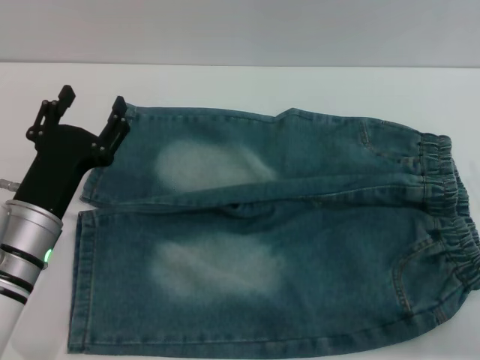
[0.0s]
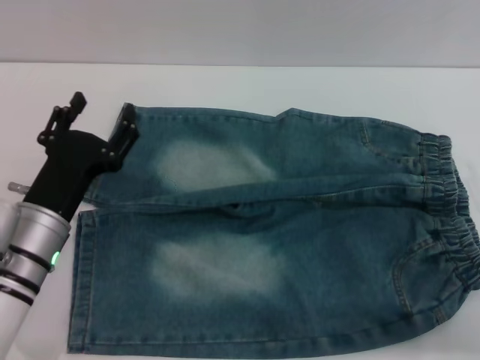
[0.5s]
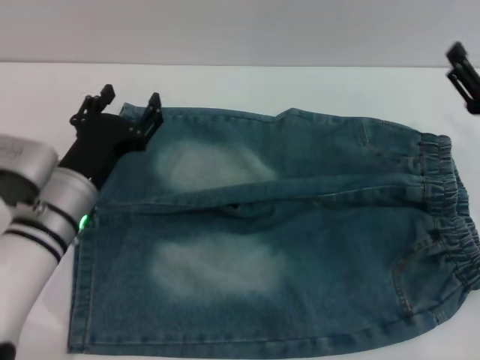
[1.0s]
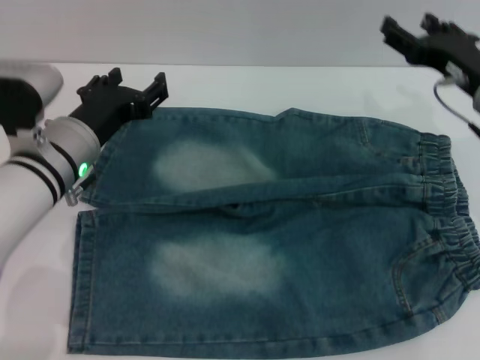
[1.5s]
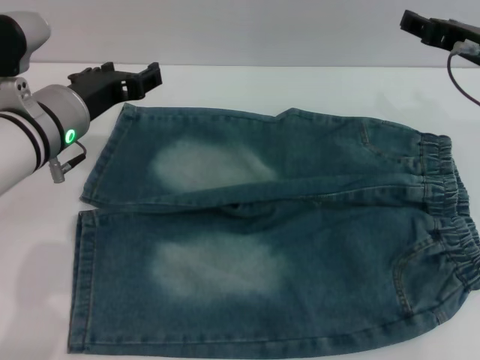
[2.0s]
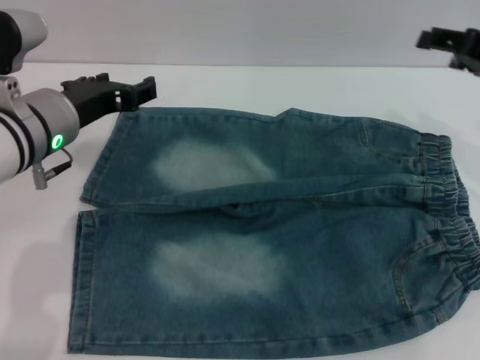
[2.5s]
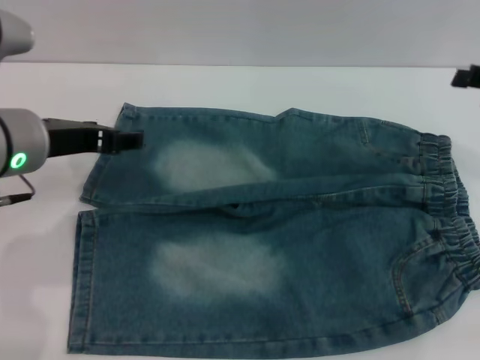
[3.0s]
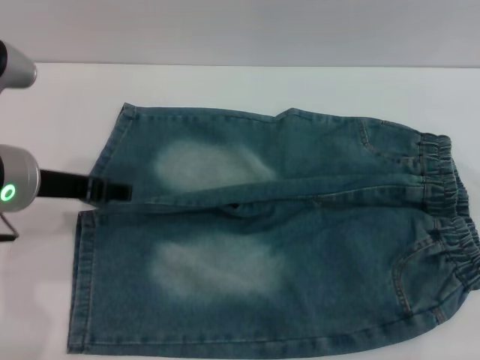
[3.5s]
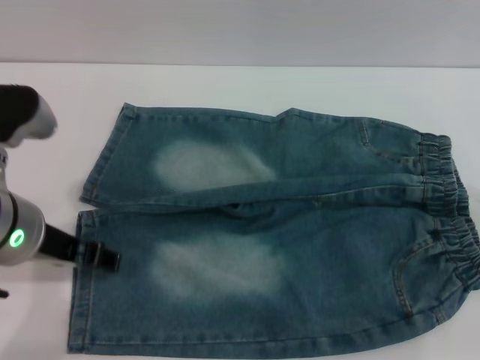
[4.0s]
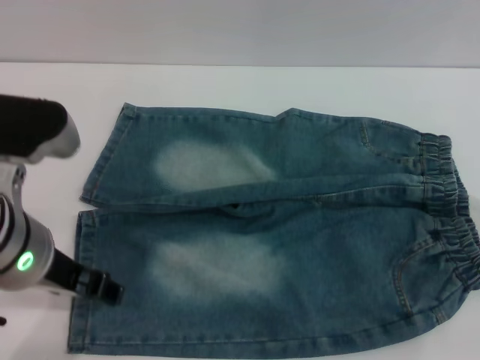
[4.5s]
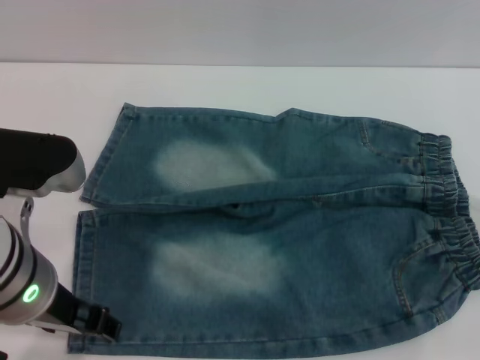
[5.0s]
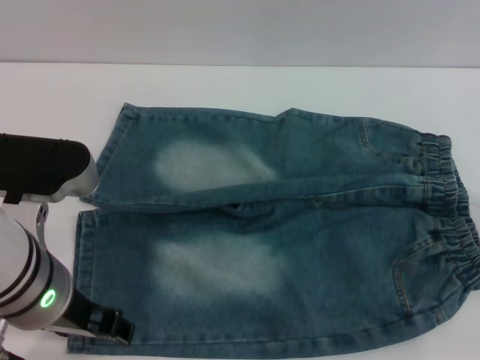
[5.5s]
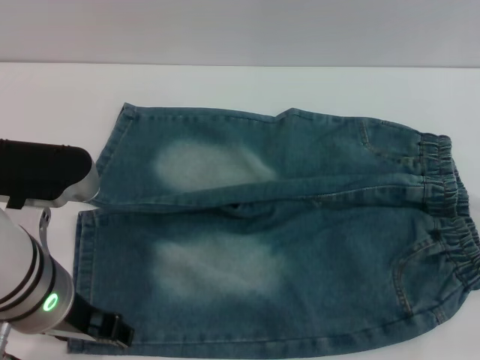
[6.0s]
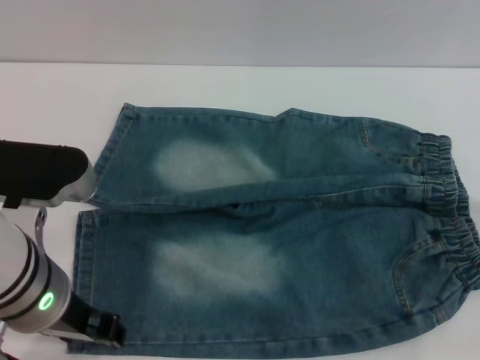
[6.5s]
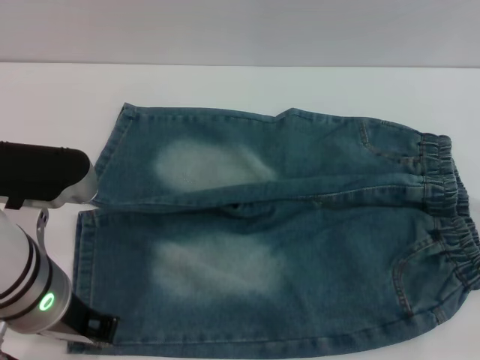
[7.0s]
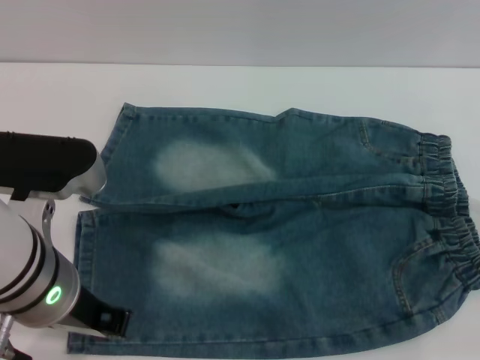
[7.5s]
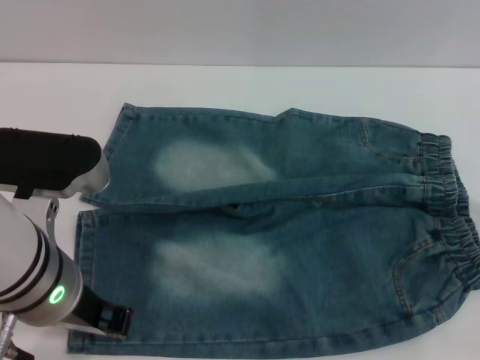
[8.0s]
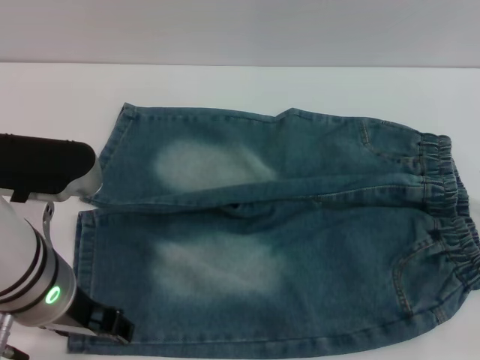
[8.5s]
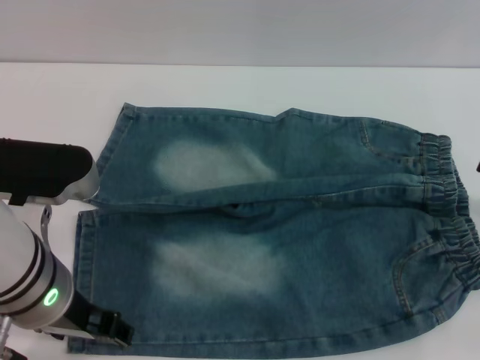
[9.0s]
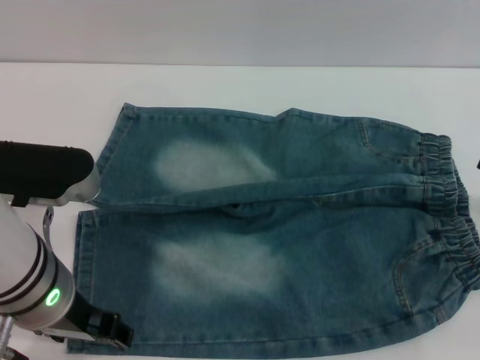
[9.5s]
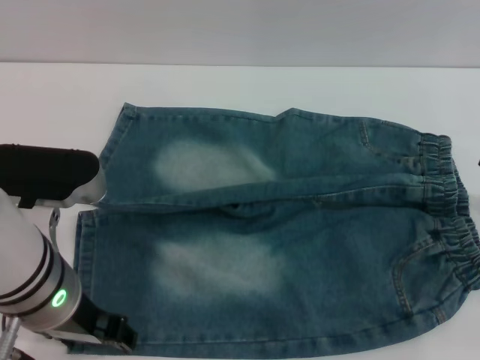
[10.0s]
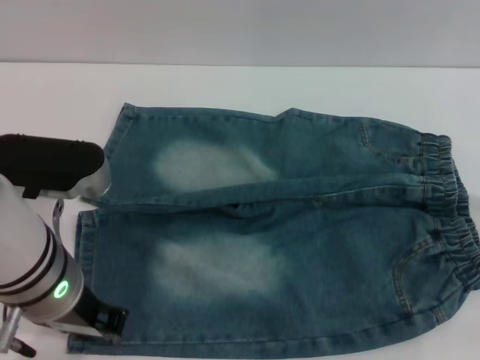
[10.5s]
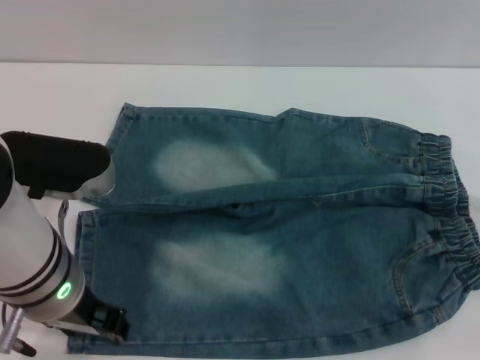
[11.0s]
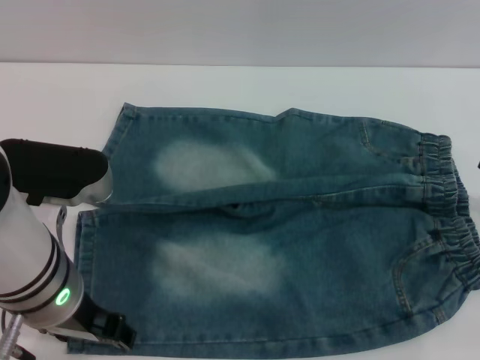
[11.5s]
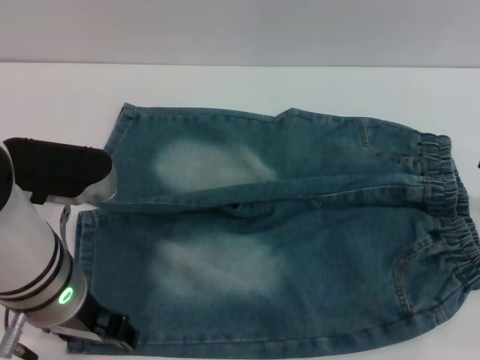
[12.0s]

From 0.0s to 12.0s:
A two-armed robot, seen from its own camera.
From 0.0s to 2.0s: The left gripper goes roughly 15 cm upward and forward, while the right gripper heads forward, upward and to the left, covering some 20 cm.
From 2.0s to 4.0s: The right gripper travels to the right and backward by approximately 15 cm. The left gripper travels backward by roughly 10 cm.
From 4.0s to 6.0s: The left gripper ends up approximately 5 cm from where it was.
From 6.0s to 8.0s: The left gripper closes.
From 8.0s to 10.0s: The left gripper opens its fingers.
From 10.0s to 12.0s: The left gripper closes and opens again.

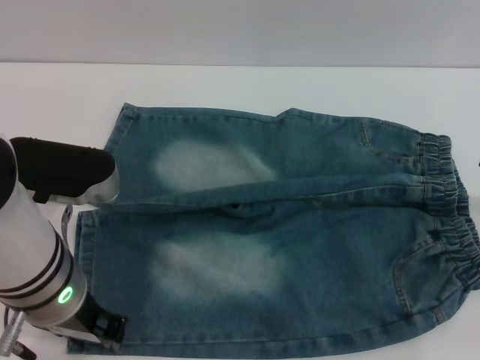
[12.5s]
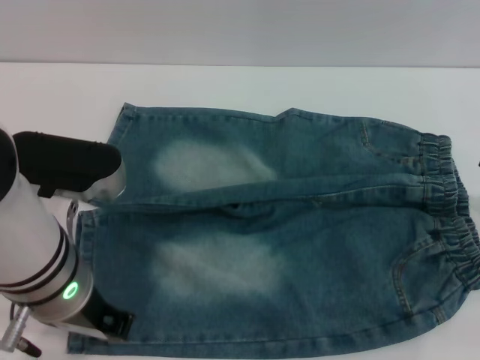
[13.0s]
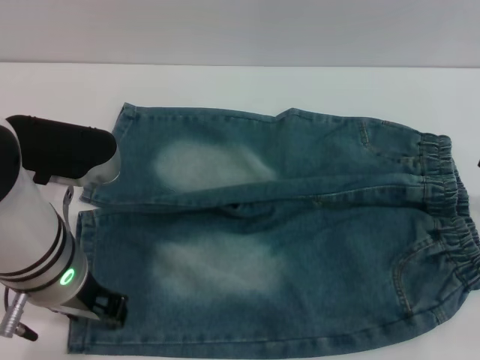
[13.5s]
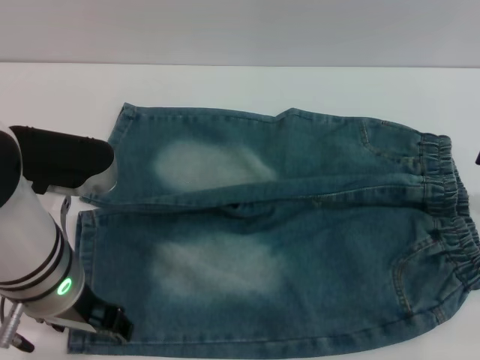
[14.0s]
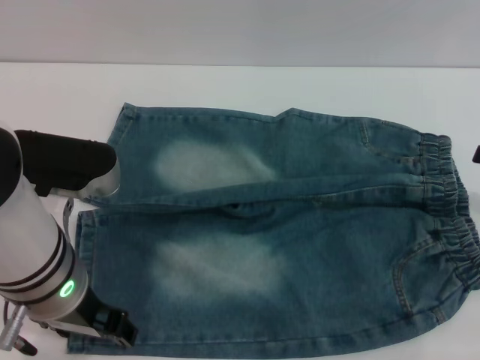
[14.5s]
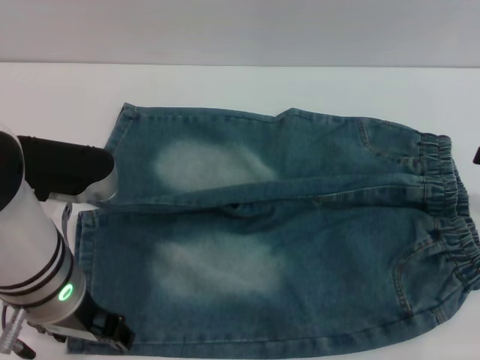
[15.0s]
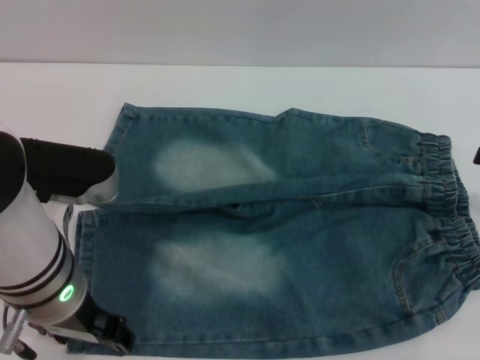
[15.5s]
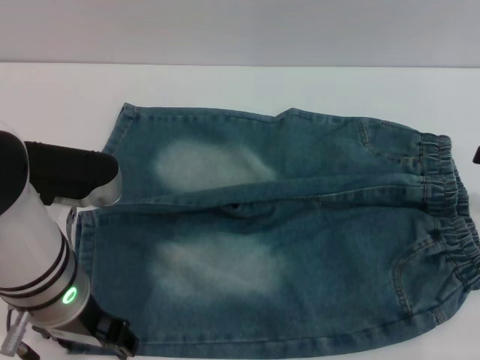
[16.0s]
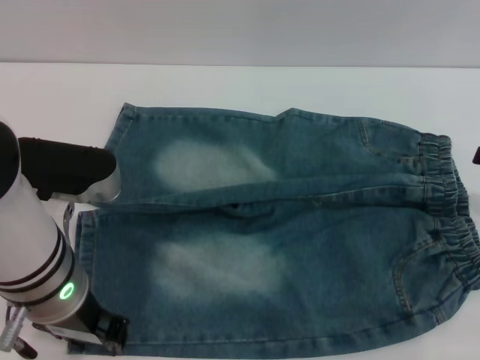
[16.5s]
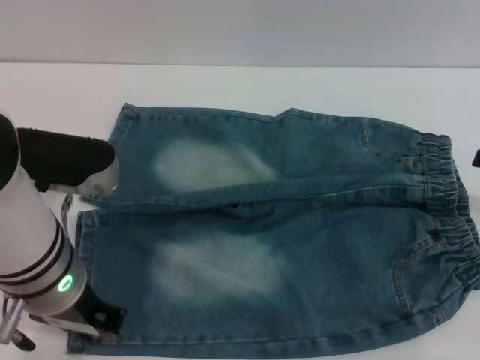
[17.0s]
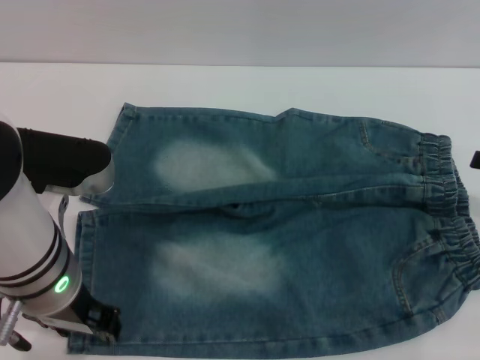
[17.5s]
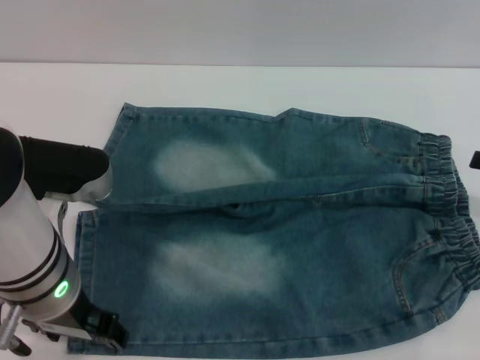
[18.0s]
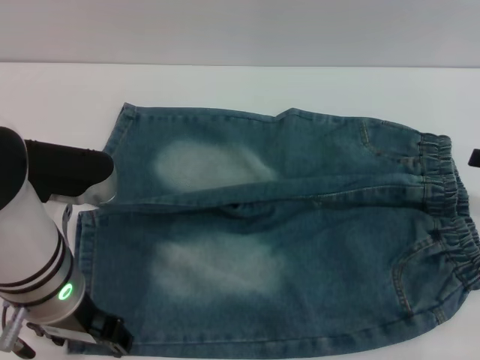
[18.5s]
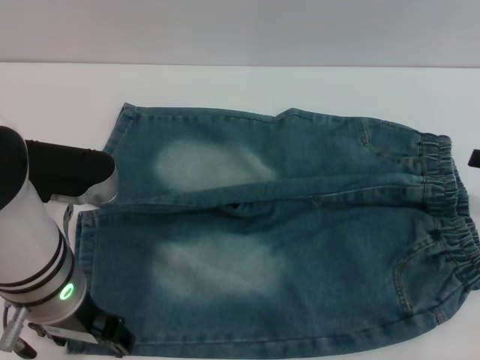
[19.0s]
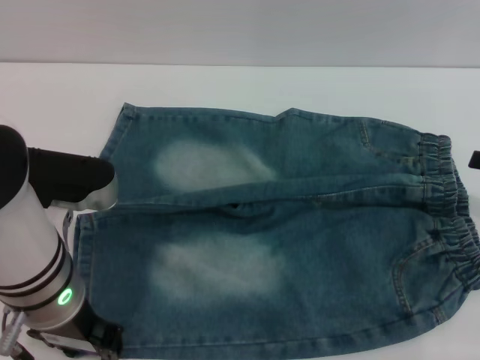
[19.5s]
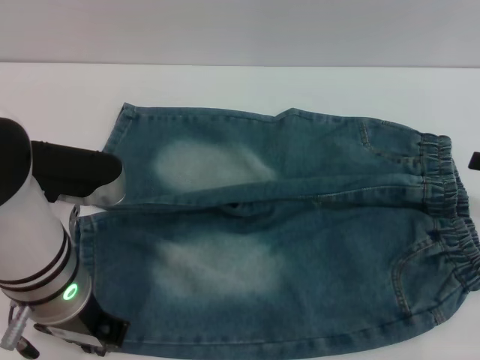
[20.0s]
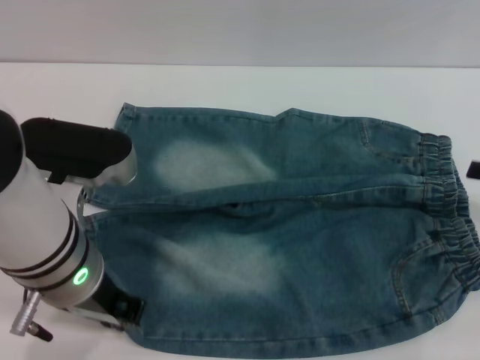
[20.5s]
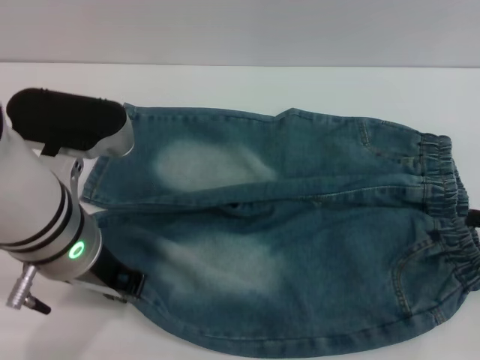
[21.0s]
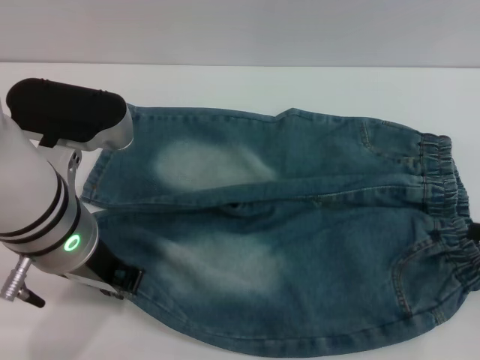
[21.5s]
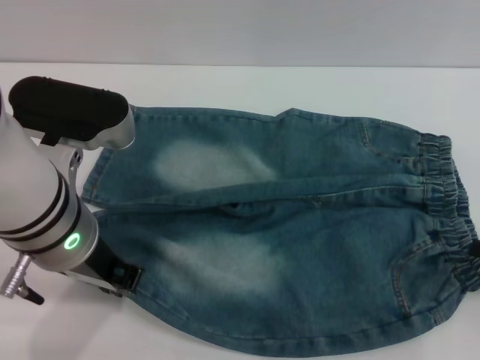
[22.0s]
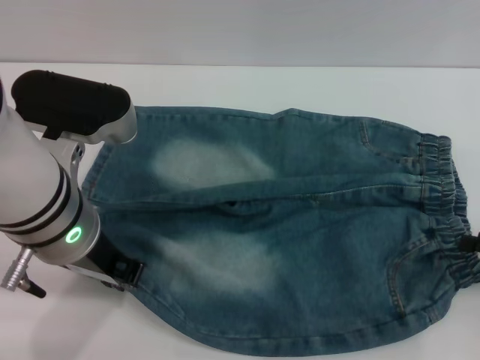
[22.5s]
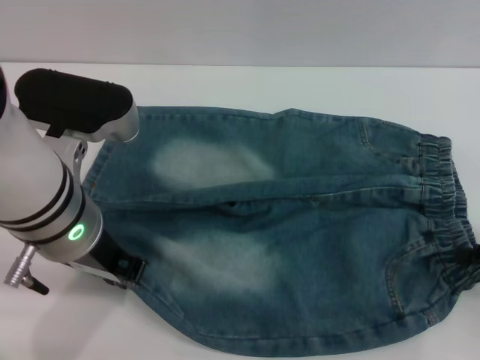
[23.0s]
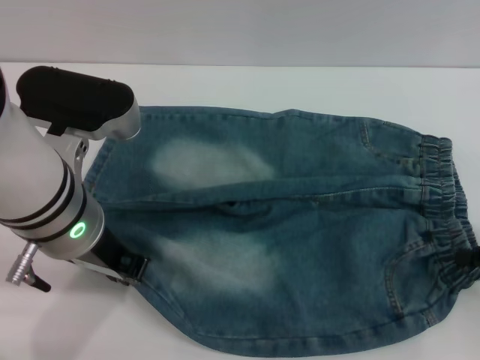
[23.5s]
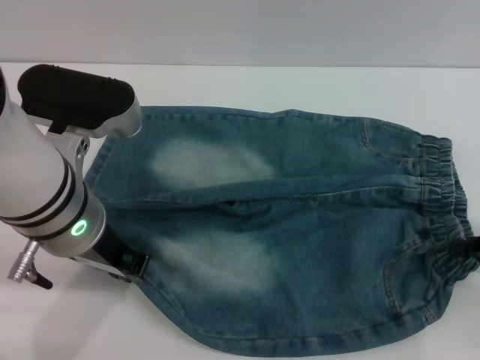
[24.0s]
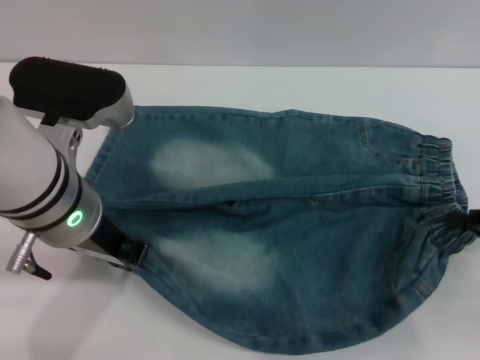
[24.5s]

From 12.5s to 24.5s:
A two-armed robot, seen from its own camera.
From 12.5s to 14.5s: The left gripper opens.
From 14.5s to 16.5s: The two grippers keep their place.
From 16.5s to 18.5s: The left gripper closes, then reopens.
From 18.5s to 20.5s: The left gripper closes.
From 20.5s to 22.5s: The right gripper goes roughly 5 cm downward.
From 22.5s to 24.5s: The right gripper closes up.

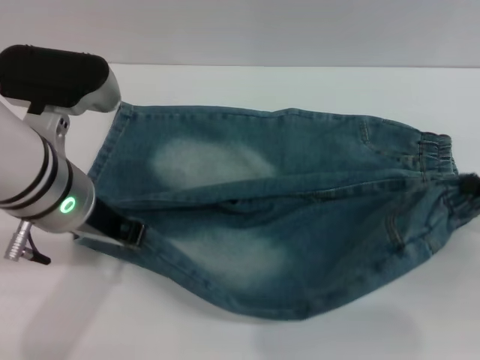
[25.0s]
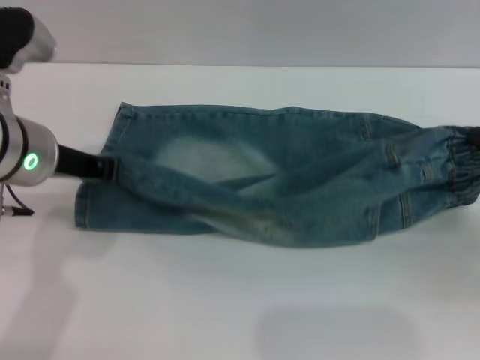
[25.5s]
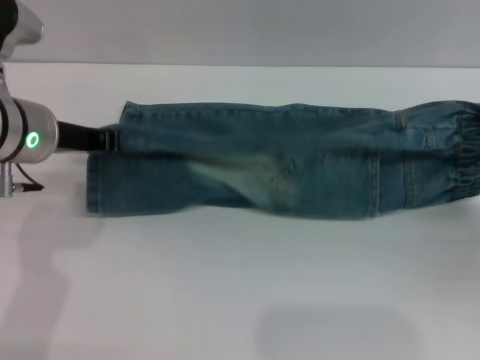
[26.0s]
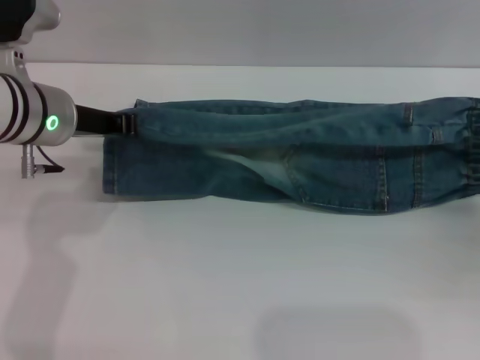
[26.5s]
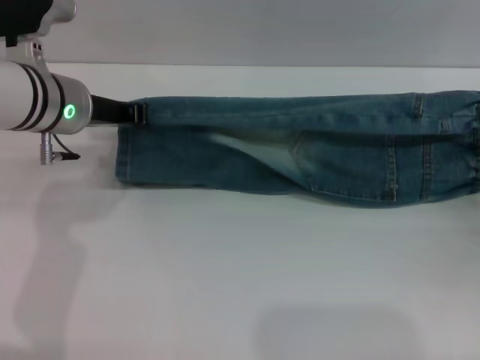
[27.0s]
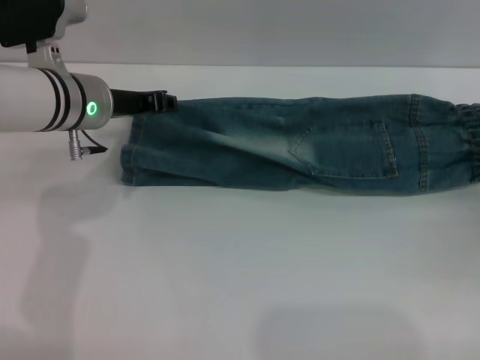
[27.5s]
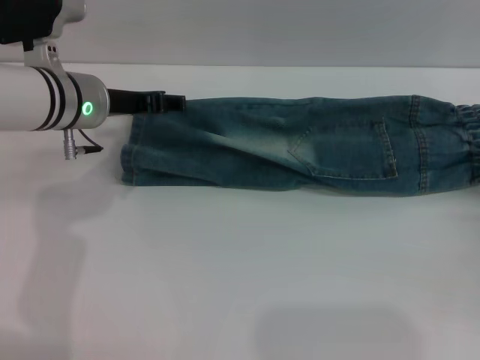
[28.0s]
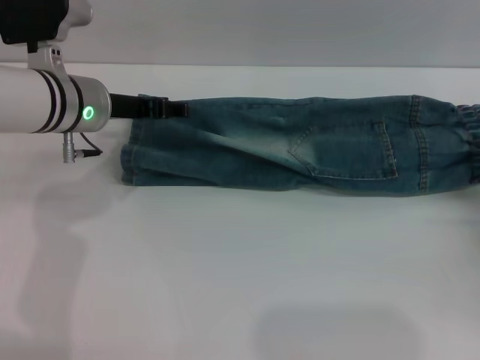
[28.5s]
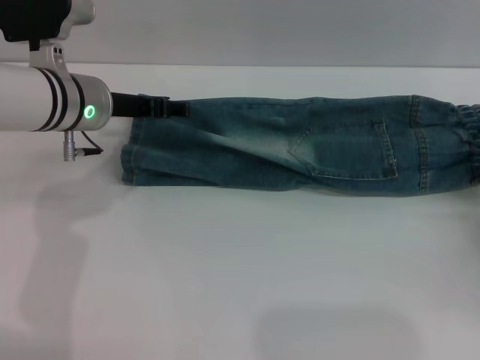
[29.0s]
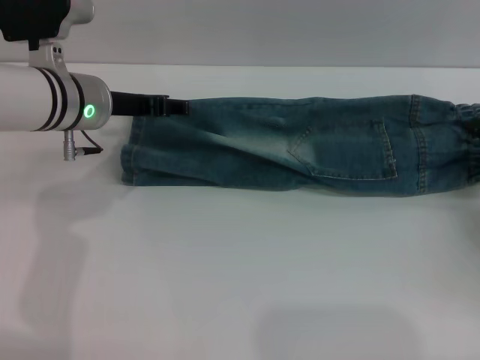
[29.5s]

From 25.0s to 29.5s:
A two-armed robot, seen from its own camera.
Step, from 25.0s to 28.0s: Fold the bottom of the pants upward with both grippers.
From 25.0s to 27.0s: The right gripper travels forward by roughly 5 cm. Meanwhile the left gripper travels forward by some 10 cm.
From 27.0s to 29.5s: The right gripper opens its fingers. The left gripper opens its fingers.
